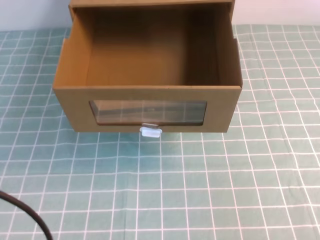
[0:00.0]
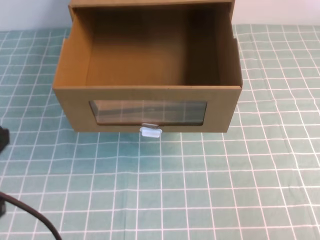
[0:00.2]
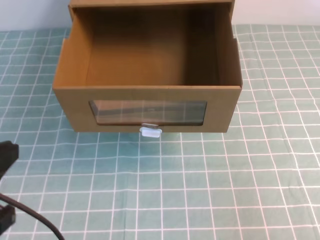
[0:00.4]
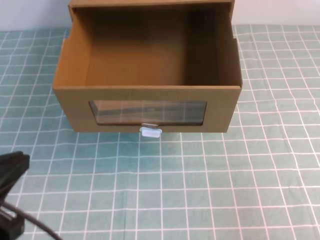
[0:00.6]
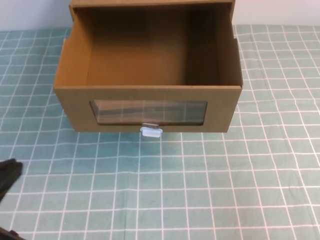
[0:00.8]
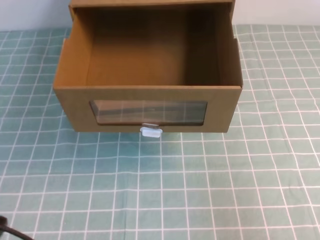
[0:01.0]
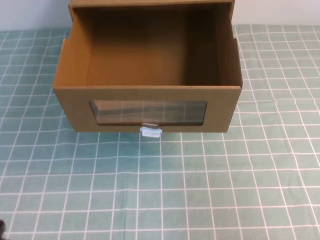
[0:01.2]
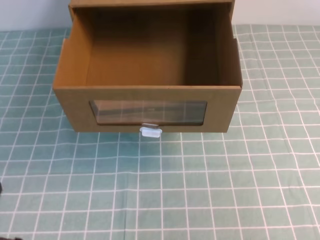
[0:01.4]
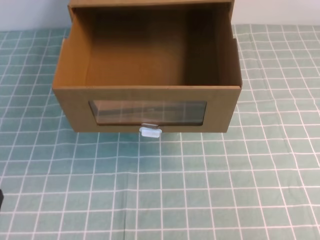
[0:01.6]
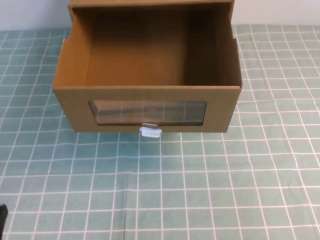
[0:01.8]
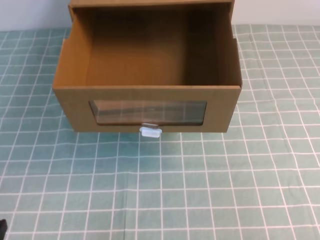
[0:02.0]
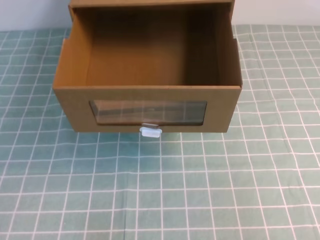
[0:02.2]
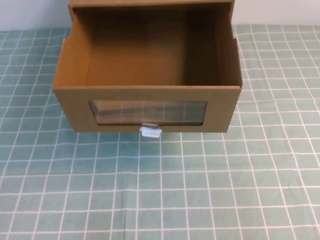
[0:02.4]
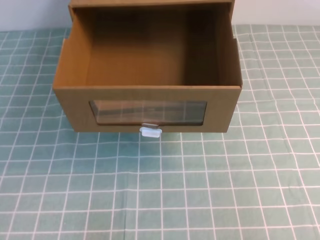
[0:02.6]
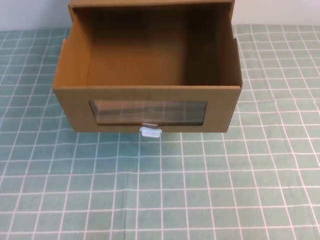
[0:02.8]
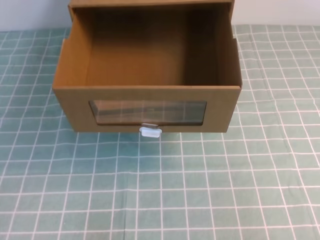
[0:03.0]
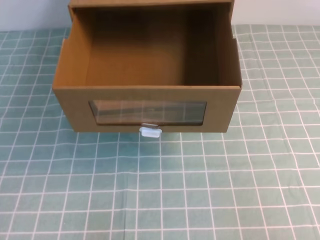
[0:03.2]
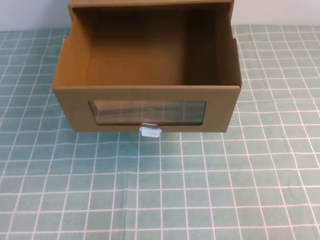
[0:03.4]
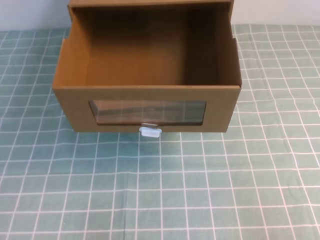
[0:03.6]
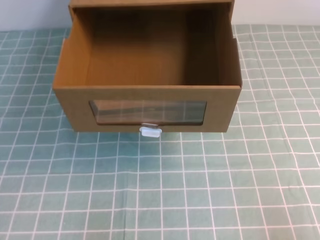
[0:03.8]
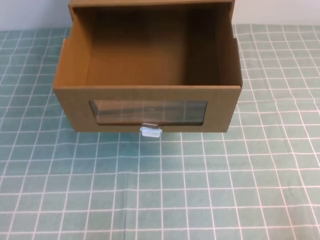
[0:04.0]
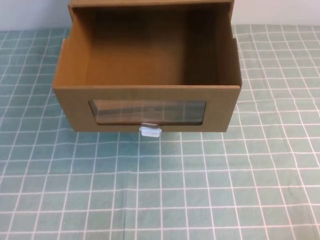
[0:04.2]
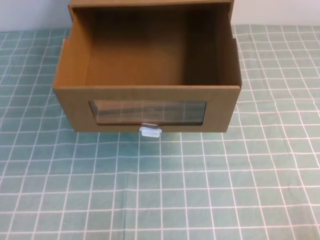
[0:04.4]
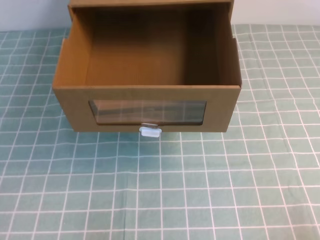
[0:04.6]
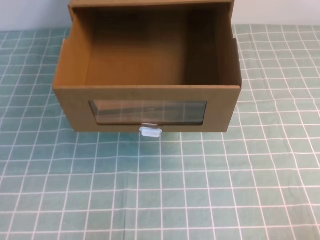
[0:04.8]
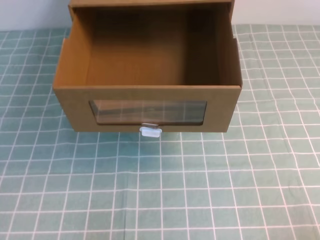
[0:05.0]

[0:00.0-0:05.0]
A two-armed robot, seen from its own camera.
Task of the whole recording: open the shoebox on the cyan tablecloth.
Step, 0.0 to 5.0 s: Open the shoe box.
0.0 to 1.6 s: The left gripper moves downward, roughly 20 cm.

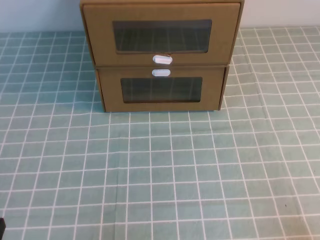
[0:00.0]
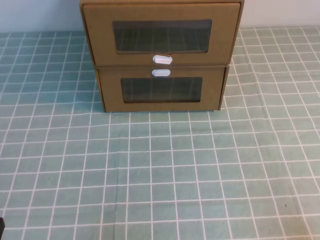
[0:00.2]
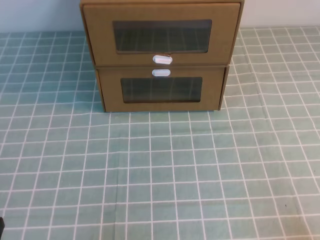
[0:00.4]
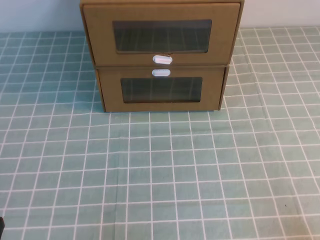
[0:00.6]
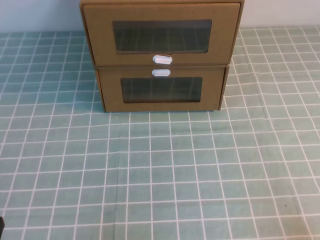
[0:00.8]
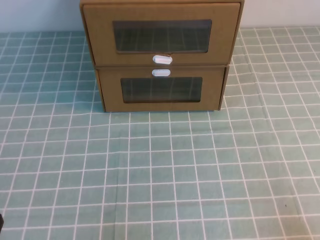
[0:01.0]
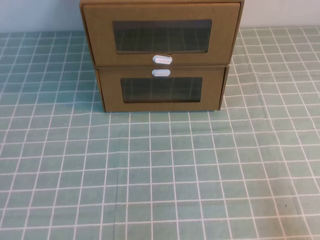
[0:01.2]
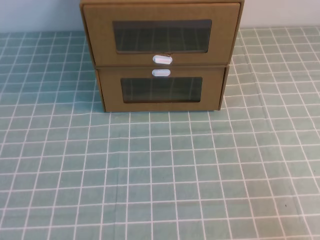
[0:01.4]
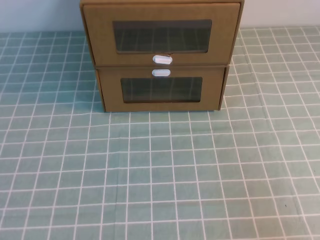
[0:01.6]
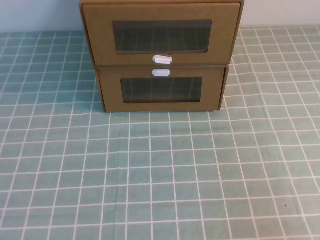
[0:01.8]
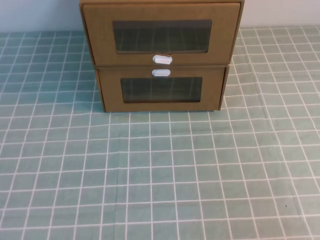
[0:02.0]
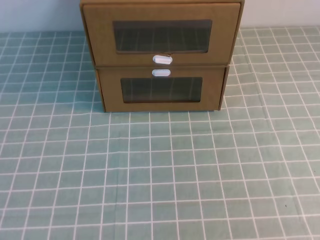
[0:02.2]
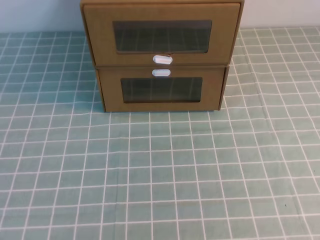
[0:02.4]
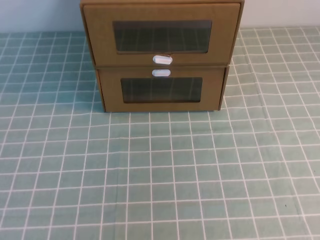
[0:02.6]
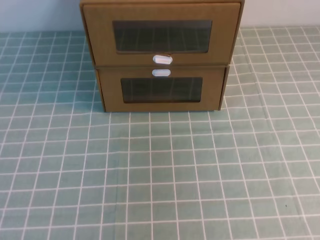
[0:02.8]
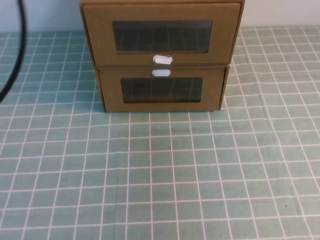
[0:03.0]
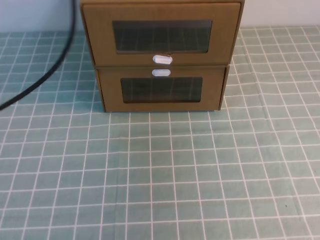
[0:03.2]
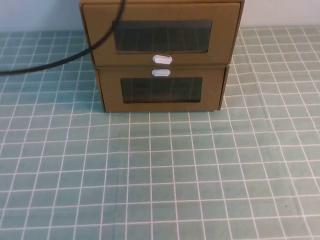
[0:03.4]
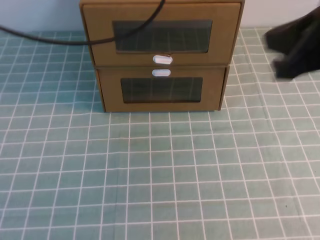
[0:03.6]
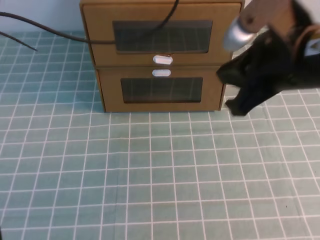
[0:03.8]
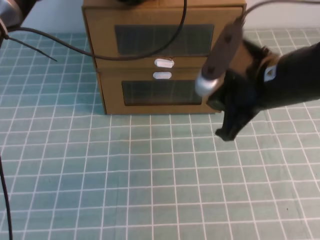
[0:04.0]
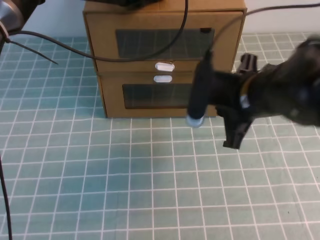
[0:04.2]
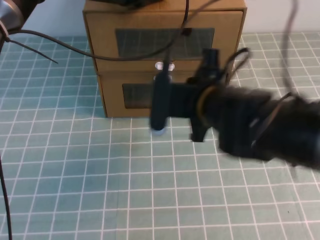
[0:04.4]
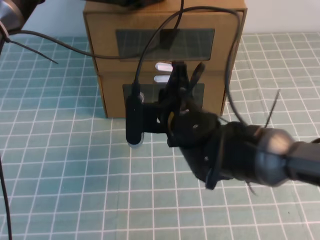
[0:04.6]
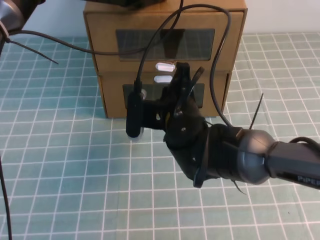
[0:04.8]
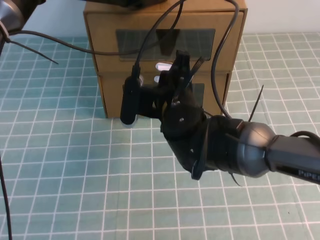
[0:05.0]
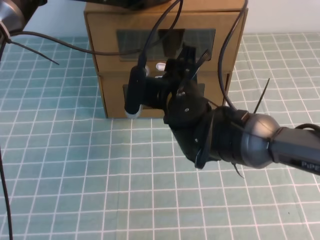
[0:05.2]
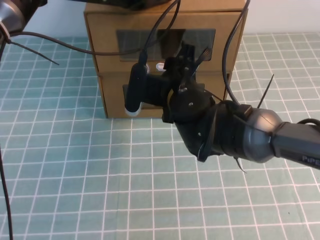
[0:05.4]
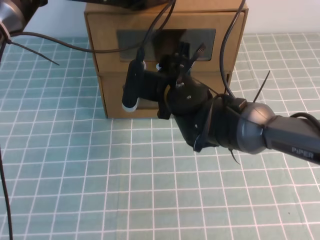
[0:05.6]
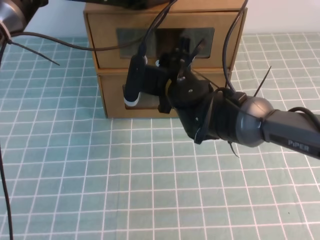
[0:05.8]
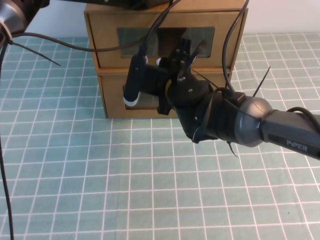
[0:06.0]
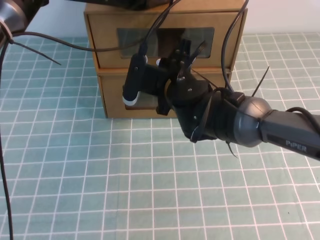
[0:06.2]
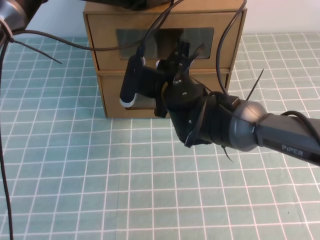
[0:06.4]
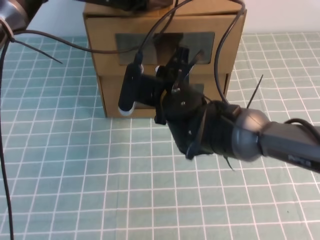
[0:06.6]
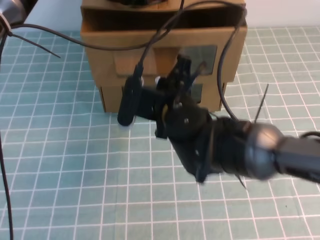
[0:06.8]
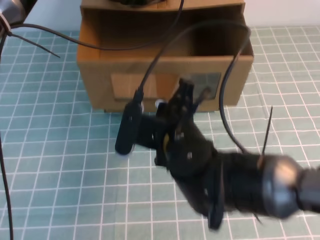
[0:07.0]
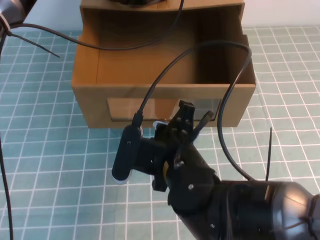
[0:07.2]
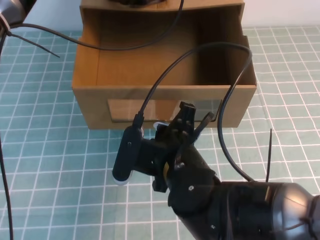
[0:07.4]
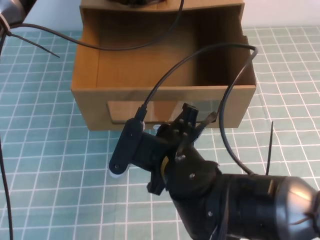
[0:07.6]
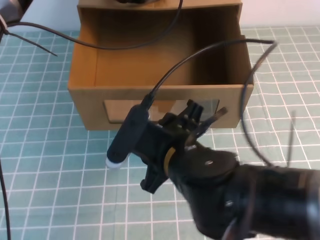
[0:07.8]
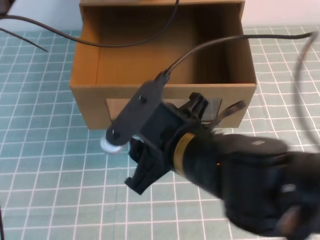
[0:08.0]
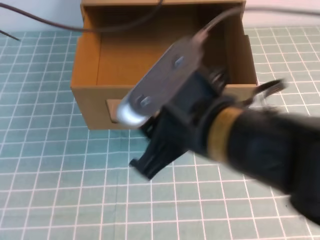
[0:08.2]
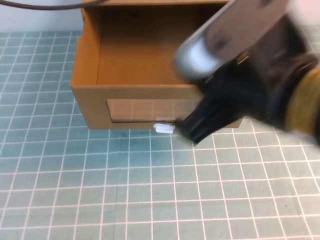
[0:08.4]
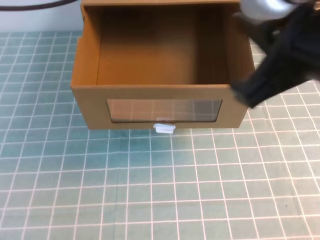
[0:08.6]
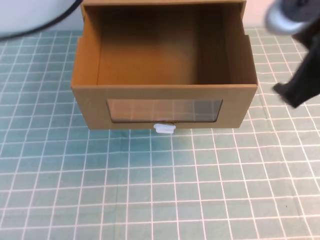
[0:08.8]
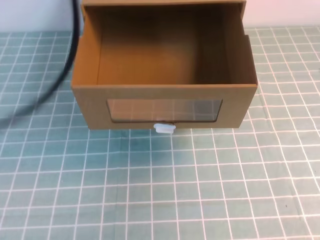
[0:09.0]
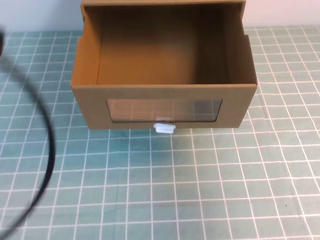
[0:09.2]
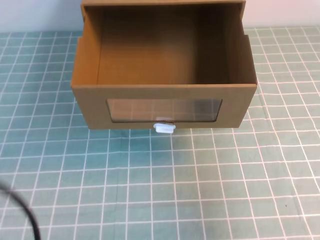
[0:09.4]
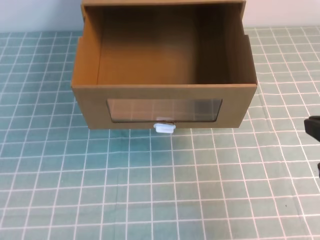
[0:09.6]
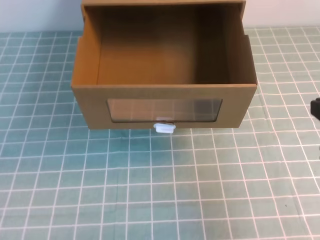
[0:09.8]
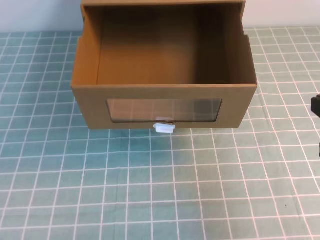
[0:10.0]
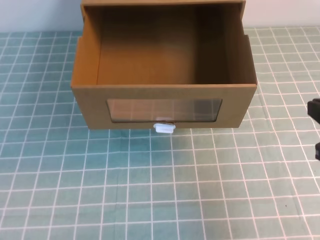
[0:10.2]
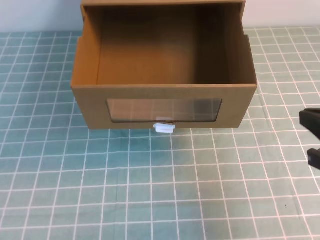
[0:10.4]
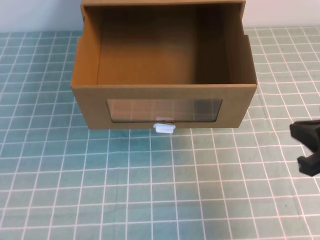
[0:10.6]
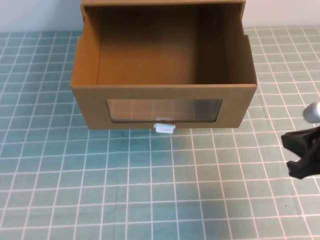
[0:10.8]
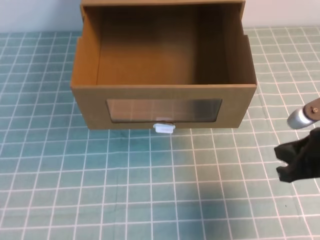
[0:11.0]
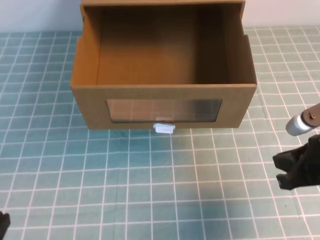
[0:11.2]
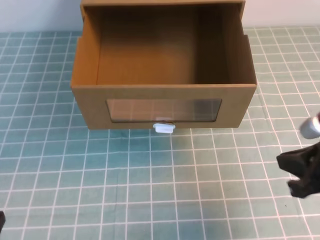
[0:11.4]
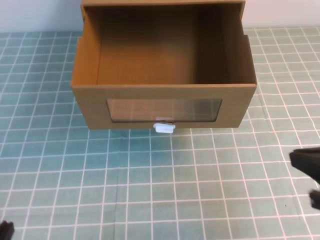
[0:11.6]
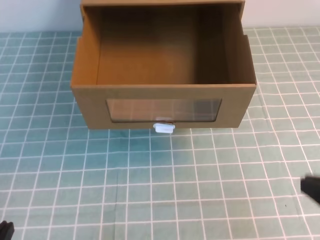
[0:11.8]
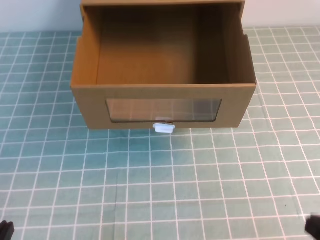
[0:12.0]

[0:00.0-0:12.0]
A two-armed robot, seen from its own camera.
Task of the whole recording: open the shoebox on the cyan tablecloth.
1.6 to 3.0 s: The left gripper travels upward and forward by roughly 25 cm, while the right gripper moves upward, roughly 25 cm.
3.0 to 4.4 s: The left gripper heads forward, to the right and downward, covering approximately 30 cm. Meanwhile the right gripper travels to the left, downward and forward by approximately 35 cm.
4.4 to 6.0 s: The right gripper moves forward and to the left, some 10 cm, and opens and closes again.
6.0 to 7.6 s: The right gripper moves backward, about 15 cm.
7.6 to 9.0 s: The left gripper heads backward, upward and to the left, covering some 35 cm; the right gripper moves to the right and upward, some 25 cm, and closes.
9.0 to 10.4 s: The left gripper shifts some 20 cm backward and downward; the right gripper shifts approximately 10 cm downward.
10.4 to 12.0 s: The right gripper is displaced backward and downward by approximately 10 cm; the left gripper shifts some 20 cm downward.

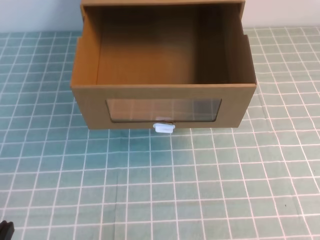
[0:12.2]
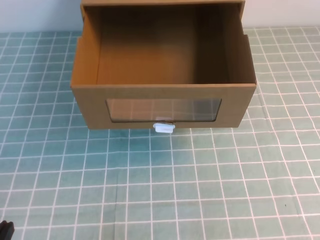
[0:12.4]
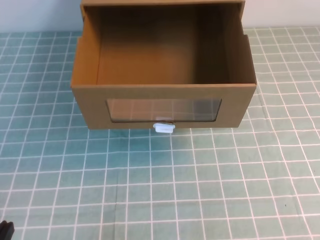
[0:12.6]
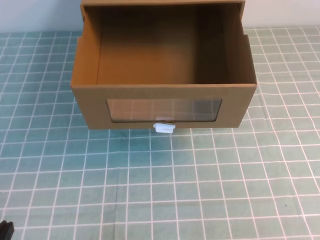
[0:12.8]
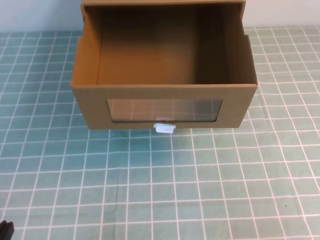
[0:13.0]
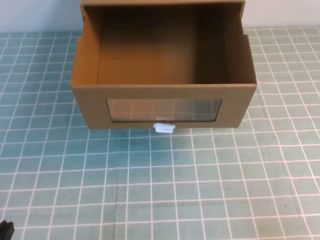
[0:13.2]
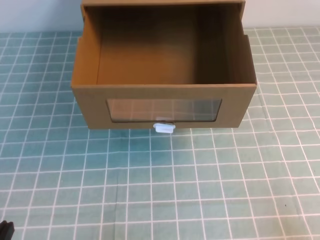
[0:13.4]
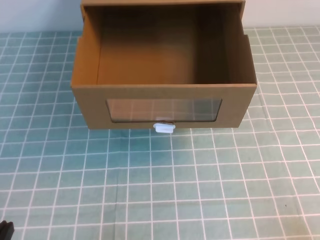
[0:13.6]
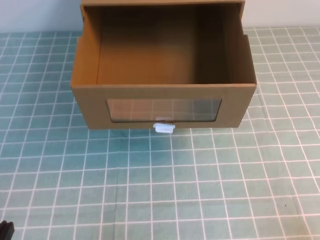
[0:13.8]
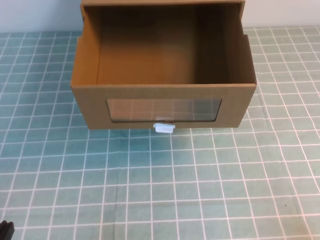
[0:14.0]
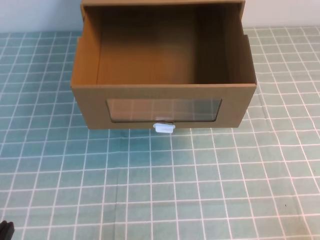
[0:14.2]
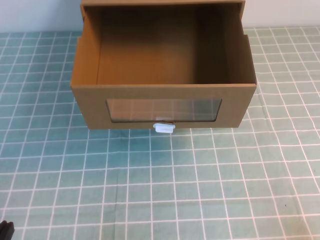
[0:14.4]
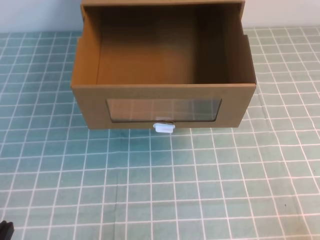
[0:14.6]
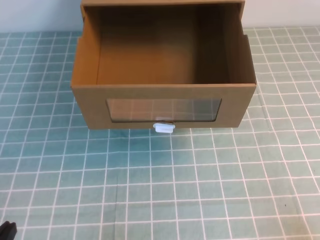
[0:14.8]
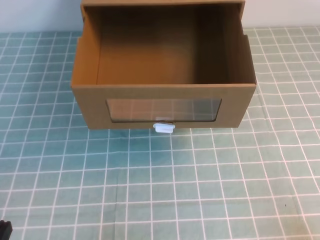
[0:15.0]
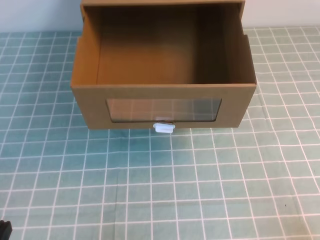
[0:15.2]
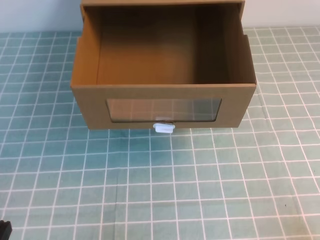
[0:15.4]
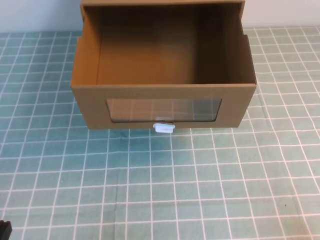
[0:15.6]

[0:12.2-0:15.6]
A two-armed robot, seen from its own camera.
Task of the whole recording: open the shoebox on the cyan tablecloth.
13.8 to 15.6 s: Both grippers stay about where they are.

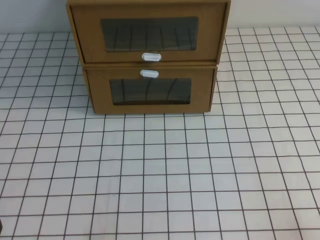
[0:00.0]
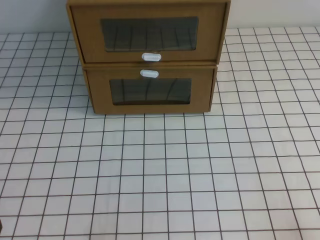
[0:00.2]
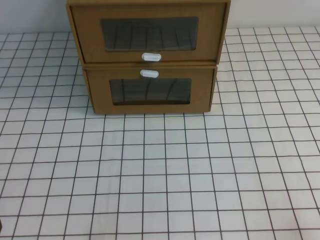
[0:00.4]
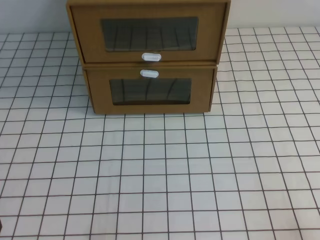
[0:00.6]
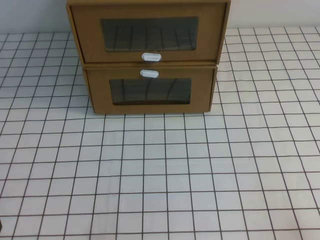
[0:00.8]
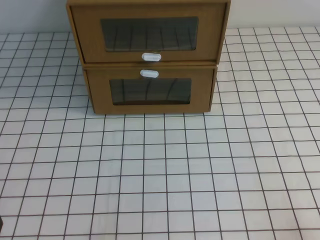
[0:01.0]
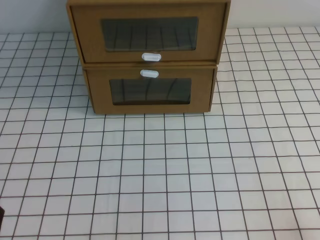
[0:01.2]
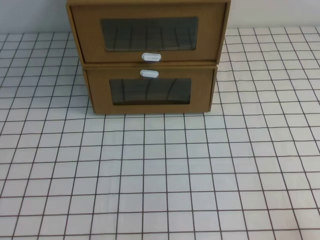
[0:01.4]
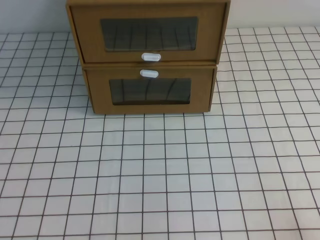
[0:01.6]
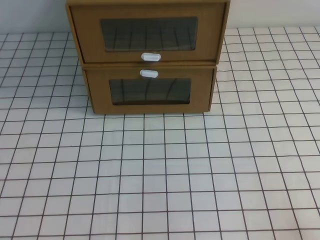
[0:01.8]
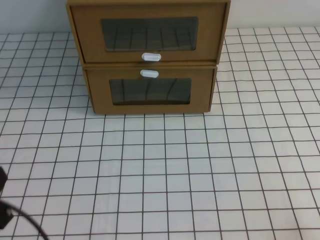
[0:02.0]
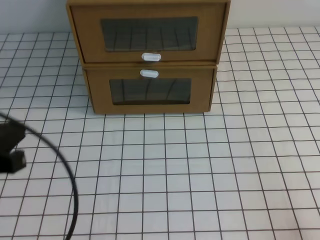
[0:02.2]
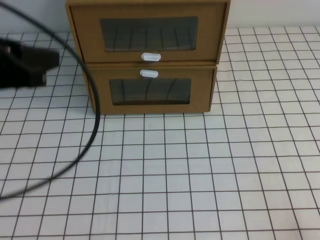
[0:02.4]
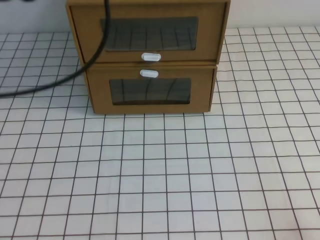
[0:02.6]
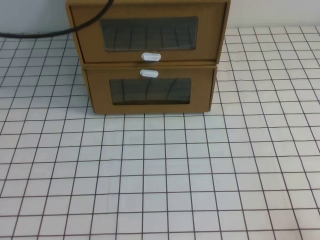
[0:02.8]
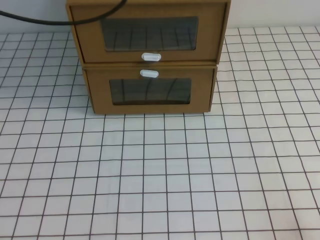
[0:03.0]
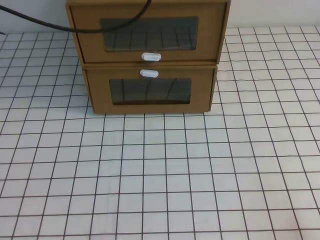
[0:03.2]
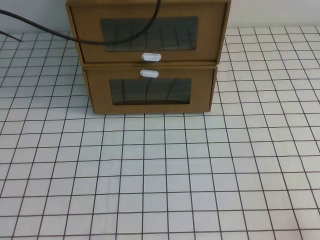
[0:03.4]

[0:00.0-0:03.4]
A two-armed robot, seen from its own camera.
Task of the whole recording: open the shoebox on the white tablecloth.
1.6 to 3.4 s: The left gripper moves forward and upward, about 40 cm.
